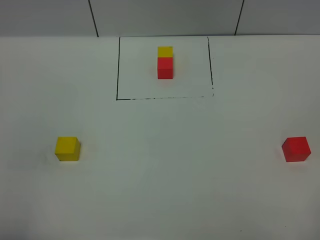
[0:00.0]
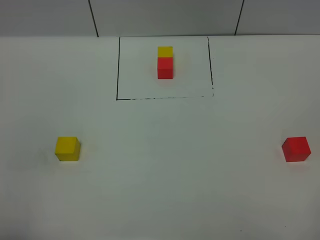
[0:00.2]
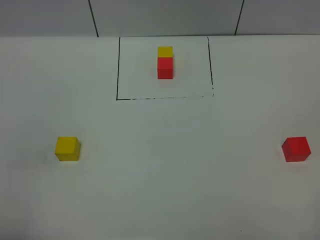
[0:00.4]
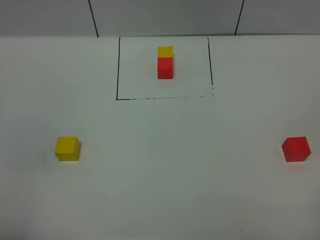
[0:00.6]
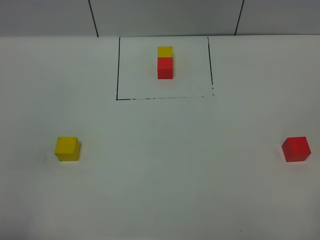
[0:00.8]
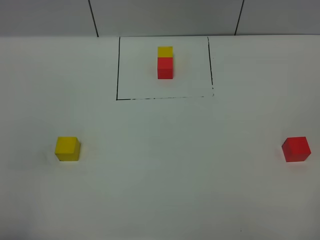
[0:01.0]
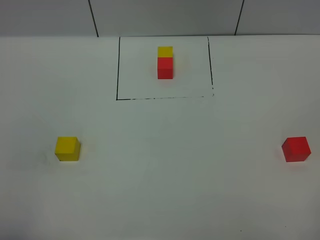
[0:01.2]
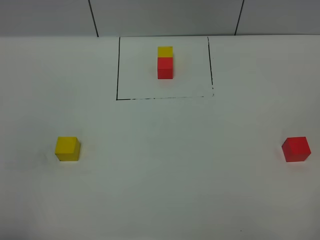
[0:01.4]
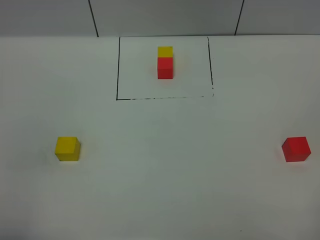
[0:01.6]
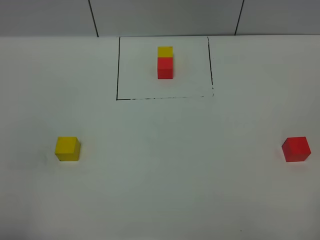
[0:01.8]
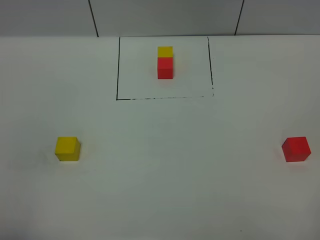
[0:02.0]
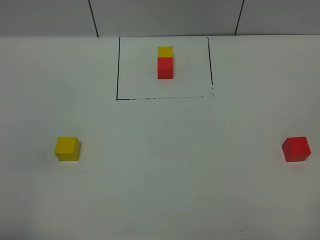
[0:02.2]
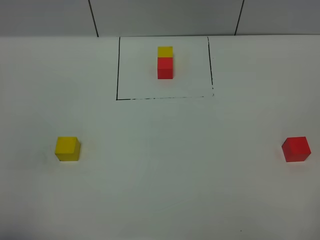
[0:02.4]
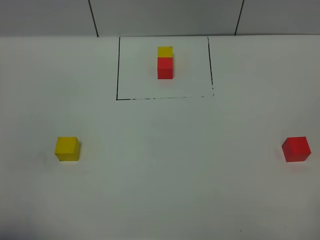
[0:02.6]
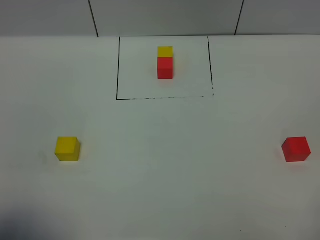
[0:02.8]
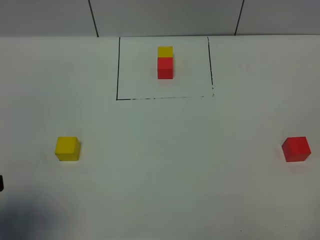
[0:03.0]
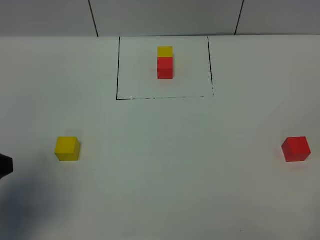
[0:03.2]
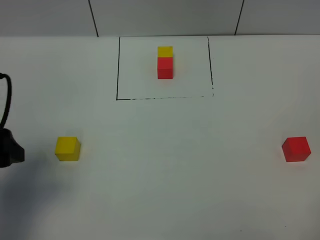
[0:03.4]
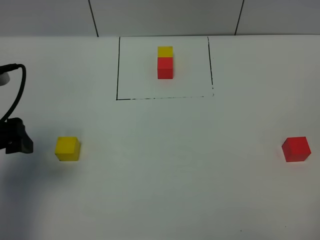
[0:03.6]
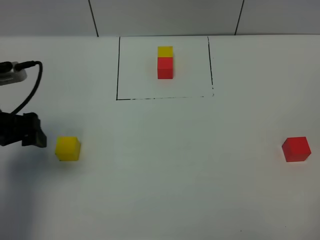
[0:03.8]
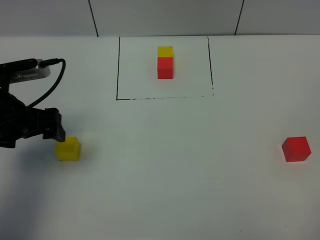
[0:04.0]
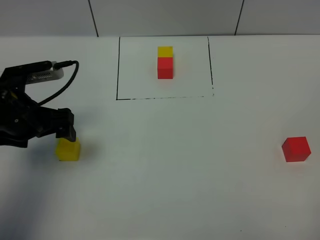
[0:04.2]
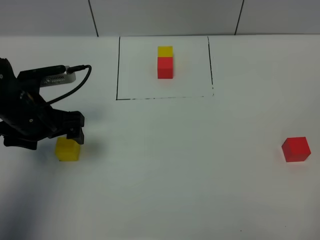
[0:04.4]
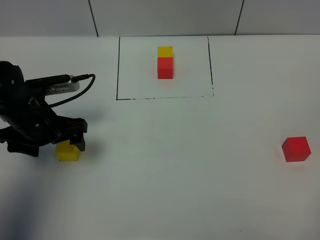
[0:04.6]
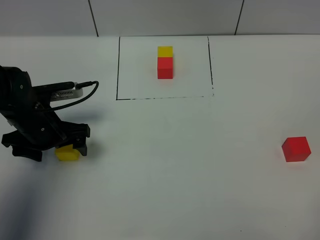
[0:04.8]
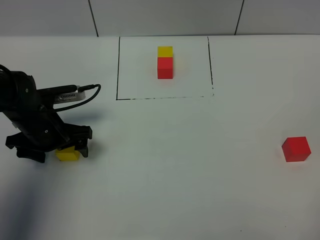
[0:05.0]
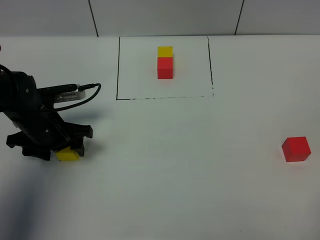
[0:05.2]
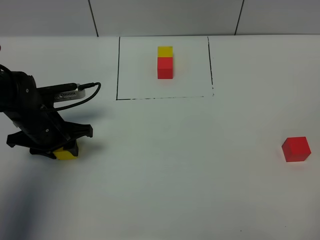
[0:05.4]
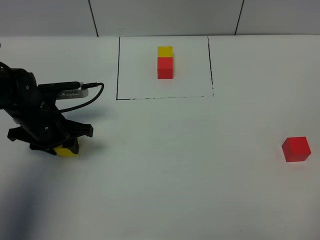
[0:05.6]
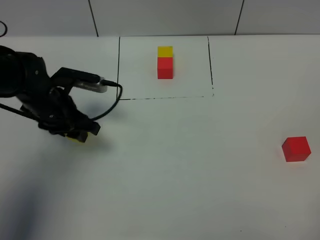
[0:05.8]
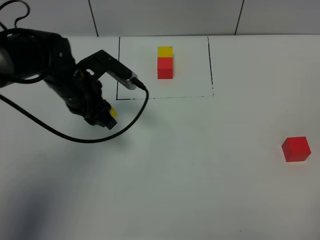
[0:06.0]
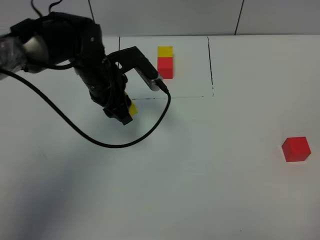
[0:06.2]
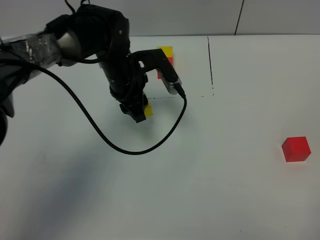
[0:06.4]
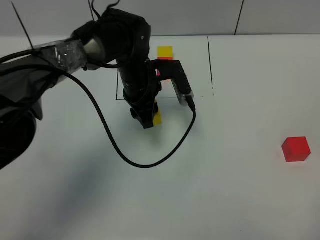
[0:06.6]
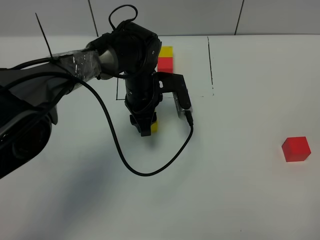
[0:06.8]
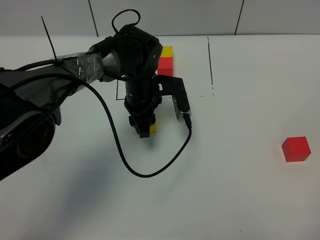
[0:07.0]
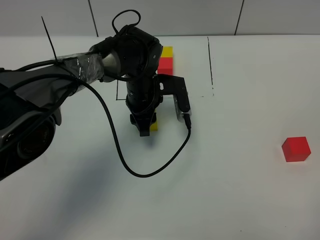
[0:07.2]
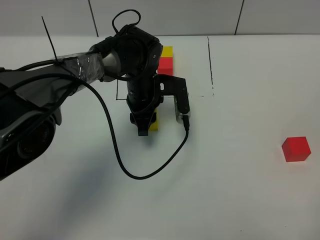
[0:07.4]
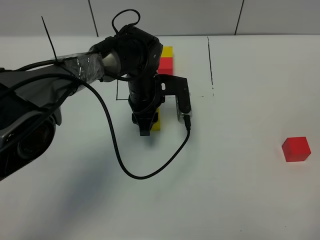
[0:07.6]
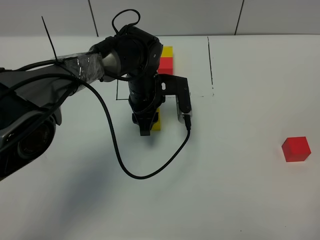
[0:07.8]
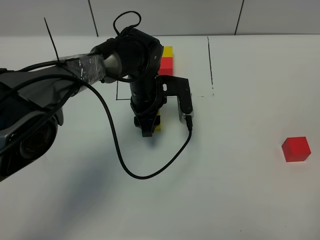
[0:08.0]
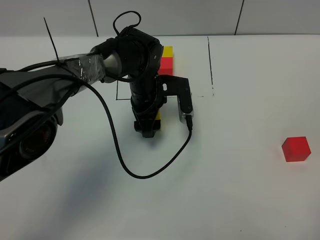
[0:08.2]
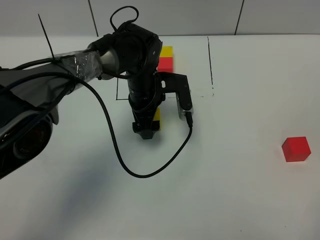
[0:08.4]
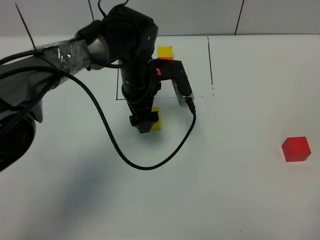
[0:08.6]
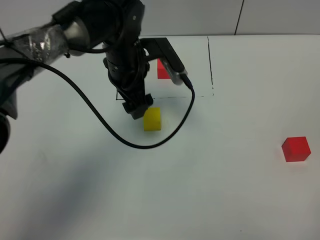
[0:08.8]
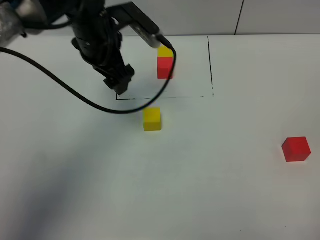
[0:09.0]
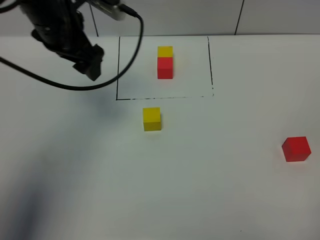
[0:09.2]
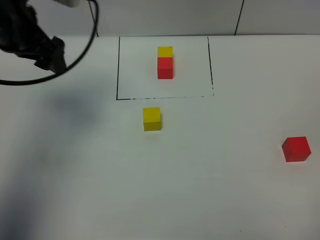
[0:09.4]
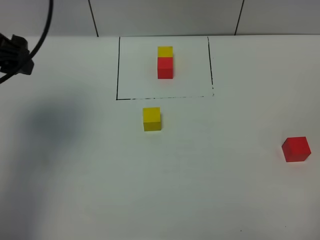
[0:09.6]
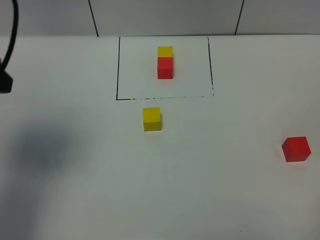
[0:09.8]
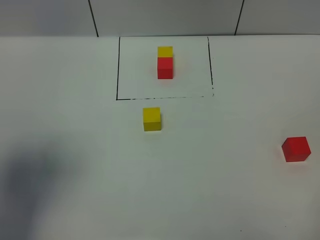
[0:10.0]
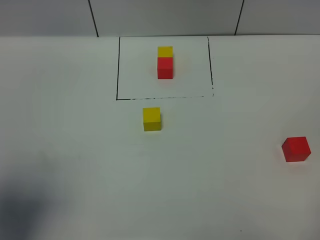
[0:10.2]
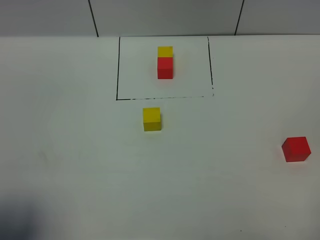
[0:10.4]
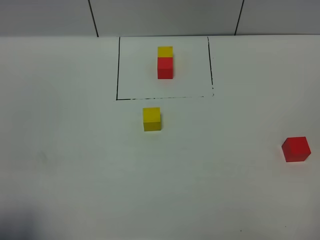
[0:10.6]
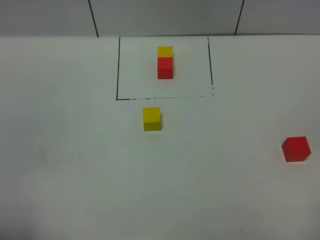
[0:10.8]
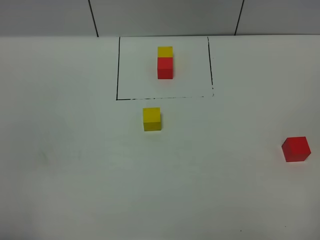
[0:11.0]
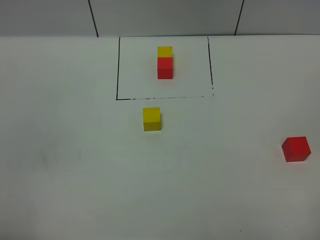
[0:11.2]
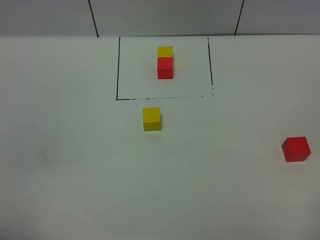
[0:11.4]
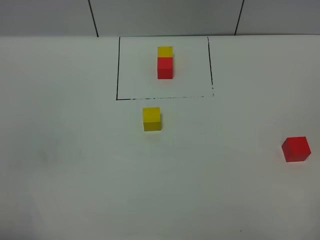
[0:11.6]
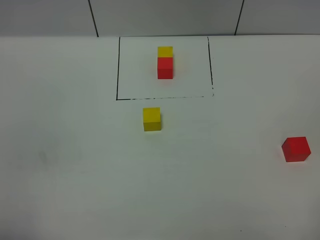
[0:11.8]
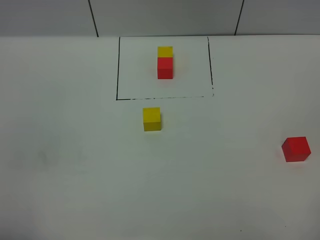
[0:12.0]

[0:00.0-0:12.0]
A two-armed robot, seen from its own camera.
Task of the whole recording: According to the building block template in front, assemble the scattered blocks together.
Step, 0:03.0 to 0:08.6: Put the yellow cube in the center of the table.
0:00.0 to 0:01.6: Neither gripper changes place.
0:01.6 to 0:03.0: The left gripper is displaced forward by roughly 10 cm, and opens.
0:03.0 to 0:04.4: The left gripper goes approximately 25 cm forward and downward.
0:04.4 to 0:06.0: The left gripper goes some 10 cm to the right and forward, and closes.
0:06.0 to 0:07.6: The left gripper goes approximately 15 cm to the right and downward.
0:07.6 to 0:09.0: The left gripper heads upward and to the left, covering some 15 cm, and opens.
0:09.0 to 0:10.4: The left gripper travels backward and to the left by approximately 40 cm.
0:10.4 to 0:12.0: The left gripper is displaced backward and downward by some 10 cm.

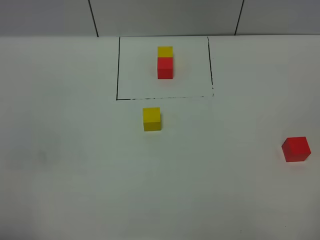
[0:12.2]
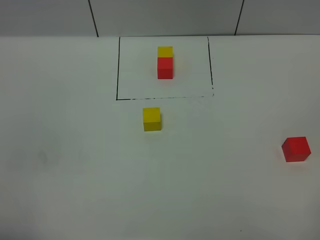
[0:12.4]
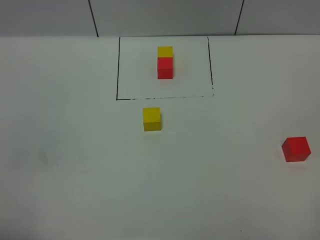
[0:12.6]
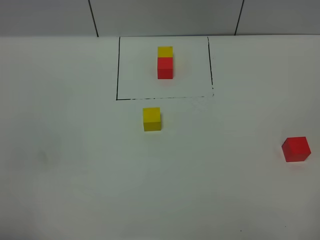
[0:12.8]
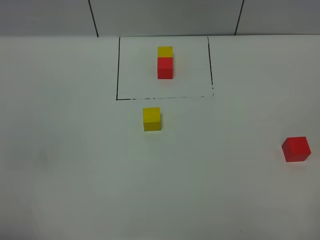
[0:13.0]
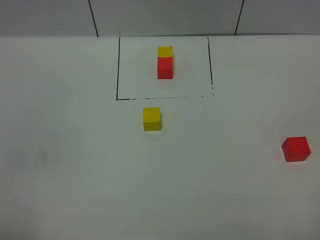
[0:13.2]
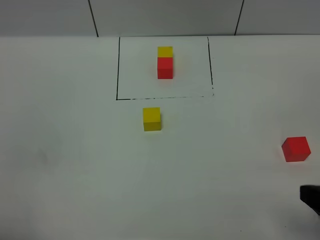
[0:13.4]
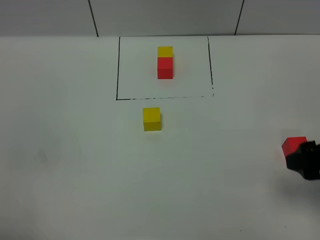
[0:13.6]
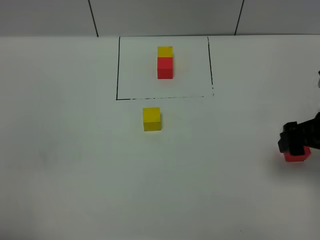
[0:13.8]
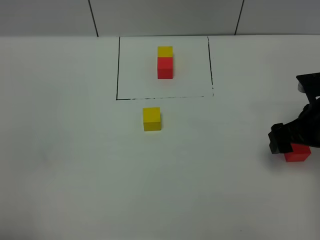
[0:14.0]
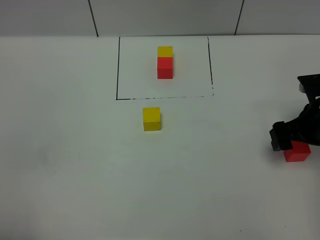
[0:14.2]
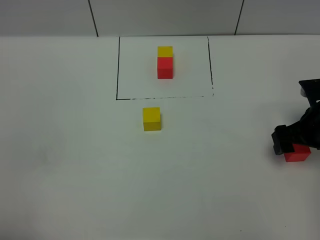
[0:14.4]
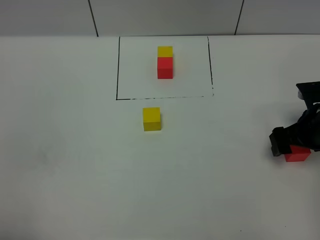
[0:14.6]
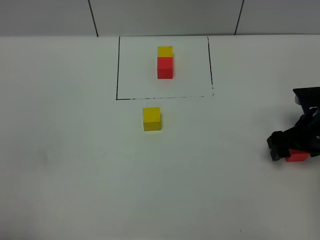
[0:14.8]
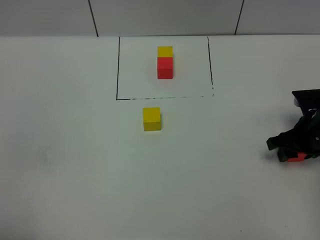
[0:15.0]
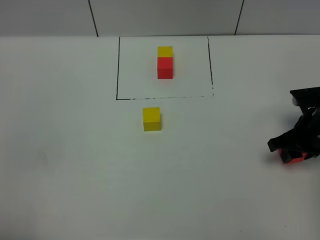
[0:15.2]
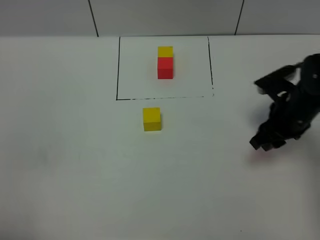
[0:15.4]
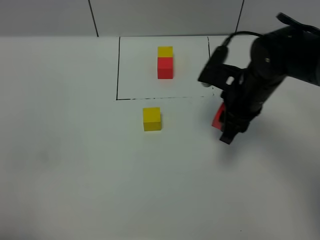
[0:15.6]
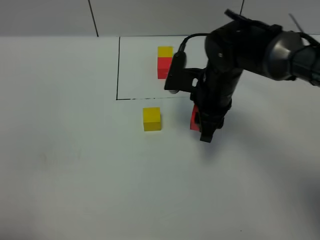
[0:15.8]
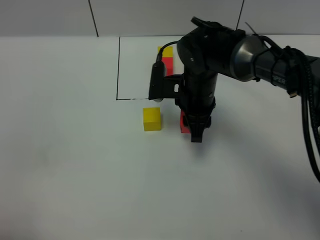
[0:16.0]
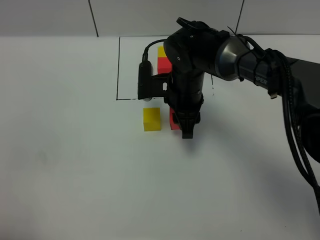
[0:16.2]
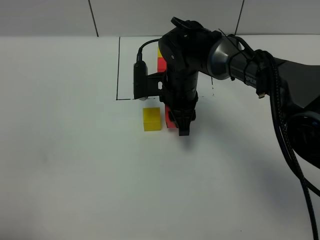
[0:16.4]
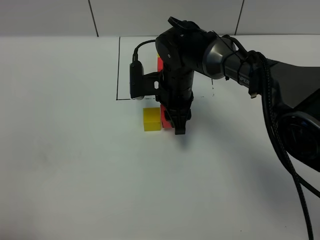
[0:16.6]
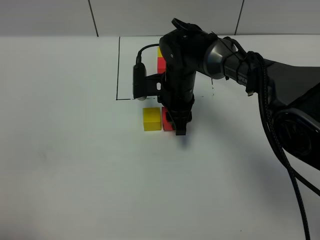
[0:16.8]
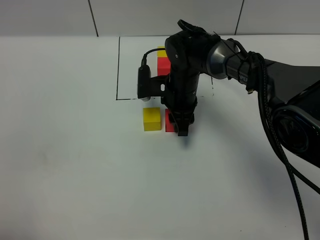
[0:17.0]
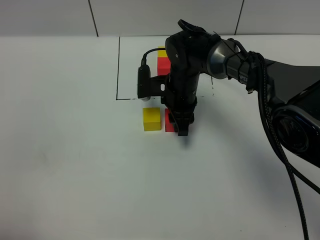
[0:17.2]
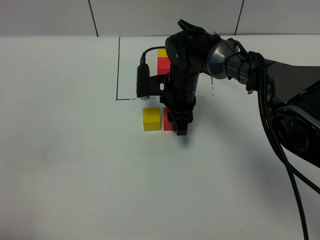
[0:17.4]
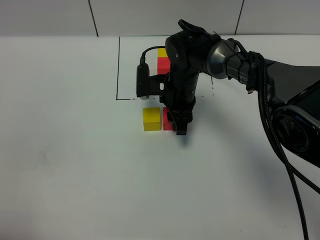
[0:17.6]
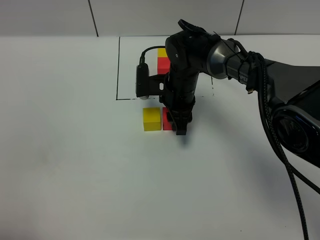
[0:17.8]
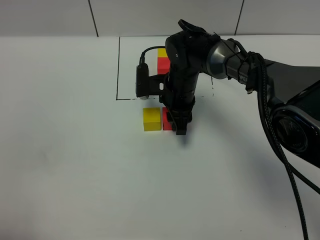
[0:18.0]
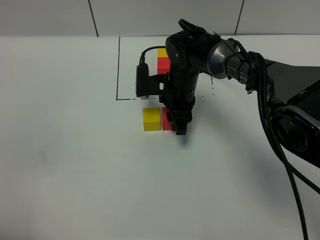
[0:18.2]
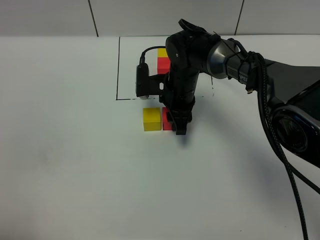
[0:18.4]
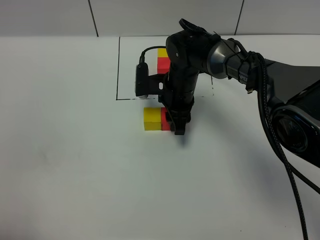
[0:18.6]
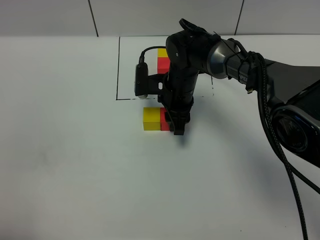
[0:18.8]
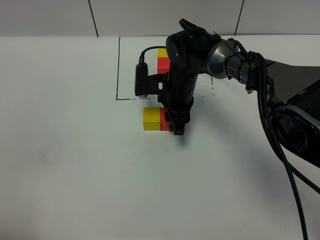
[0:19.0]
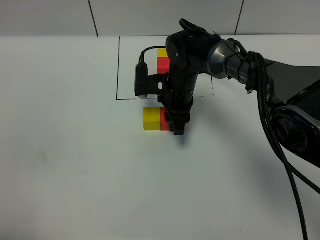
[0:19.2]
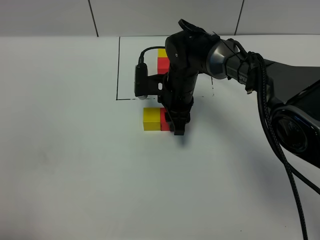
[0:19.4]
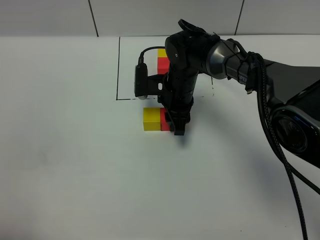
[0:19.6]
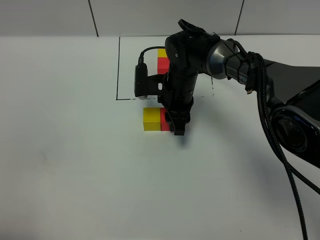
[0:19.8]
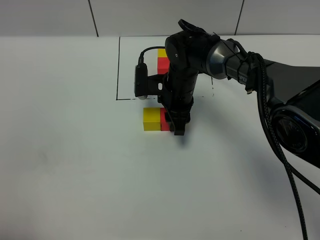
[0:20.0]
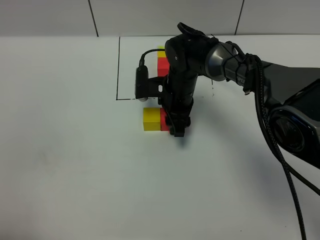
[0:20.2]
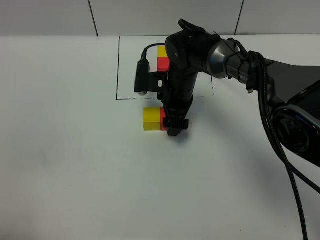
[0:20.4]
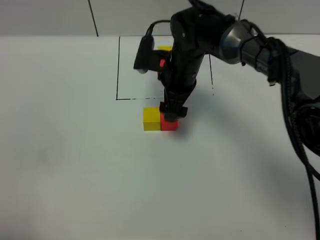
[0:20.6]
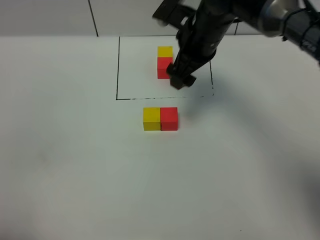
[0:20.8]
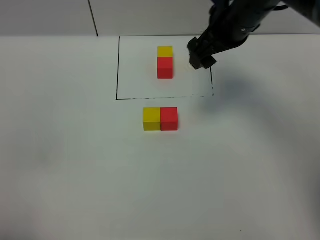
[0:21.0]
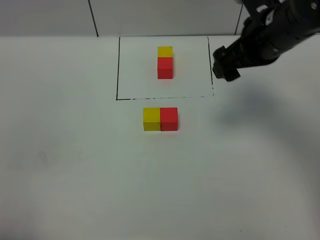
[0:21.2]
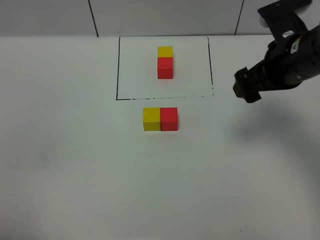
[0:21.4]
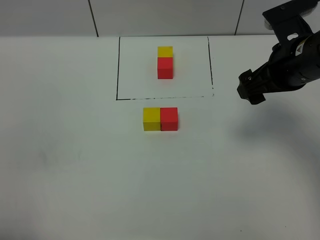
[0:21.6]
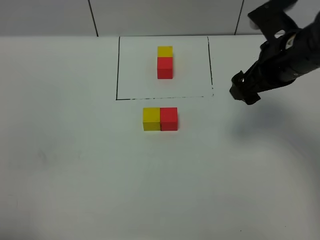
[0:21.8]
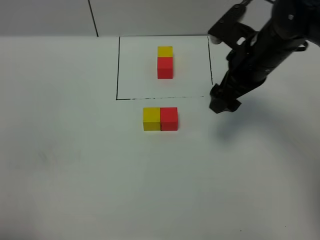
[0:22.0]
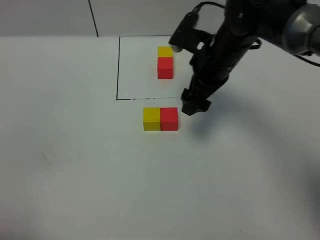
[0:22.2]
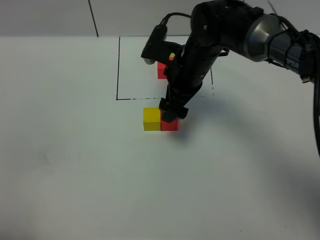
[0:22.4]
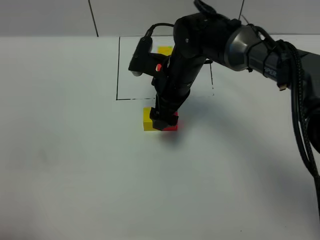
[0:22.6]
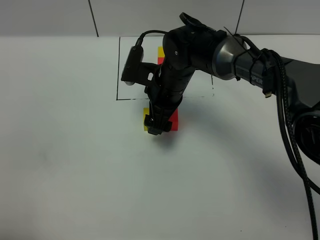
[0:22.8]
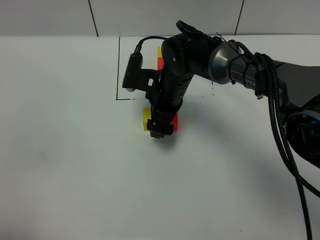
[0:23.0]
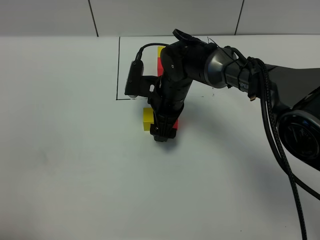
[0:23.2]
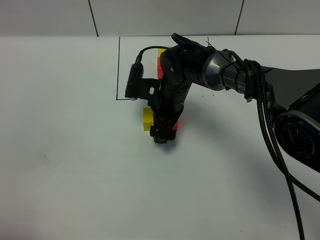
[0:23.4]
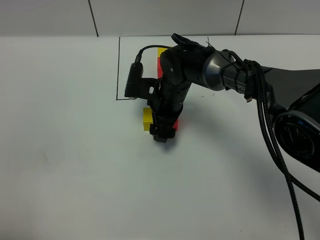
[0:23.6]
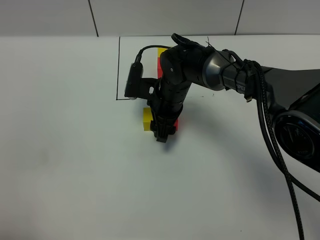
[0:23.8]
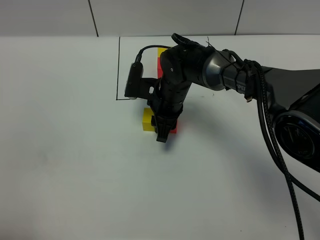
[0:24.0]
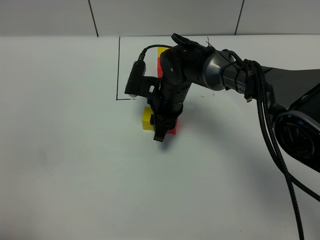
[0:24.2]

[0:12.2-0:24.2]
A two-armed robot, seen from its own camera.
Task of the whole recording: According to the building block template in front, assemble the scattered blocks together.
Step, 0:12.2 to 0:20.6: Put the red cube on the right of the yellow cube.
0:12.2 to 0:13.8: The right gripper goes some 25 cm forward.
0:13.8 to 0:15.2: The right gripper moves downward and forward, about 10 cm, and closes up.
0:15.2 to 0:16.6: The right gripper moves to the left, some 25 cm.
0:16.6 to 0:18.2: The grippers move only a little.
0:18.2 to 0:19.8: Both grippers stay put.
0:19.8 to 0:21.2: The right gripper goes about 20 cm upward and to the right, and opens.
0:21.2 to 0:22.6: The right gripper shifts roughly 20 cm to the left and downward.
0:22.6 to 0:24.2: The right gripper heads downward, covering about 5 cm, and closes its fingers.
